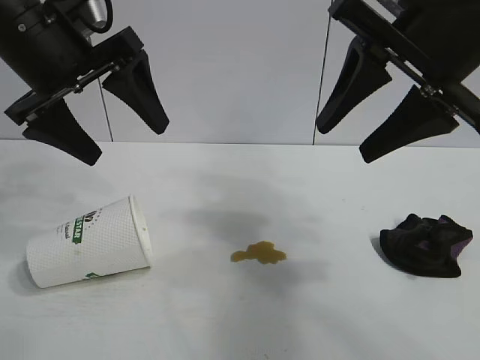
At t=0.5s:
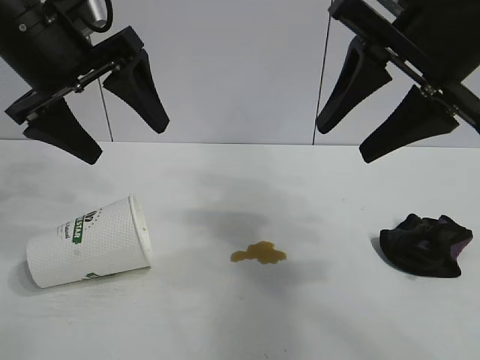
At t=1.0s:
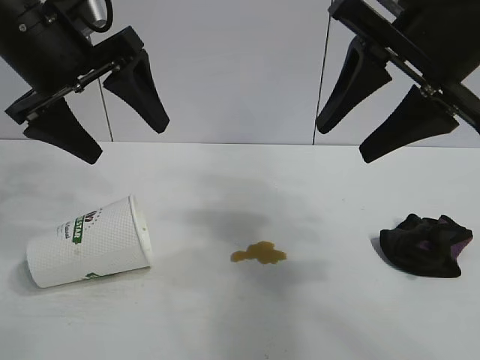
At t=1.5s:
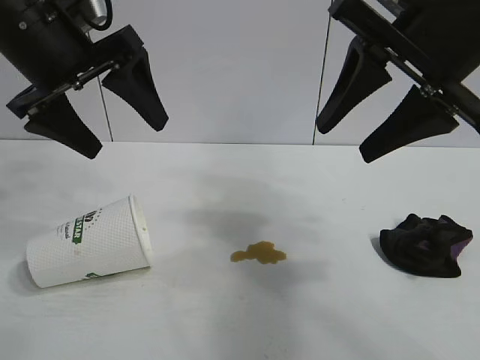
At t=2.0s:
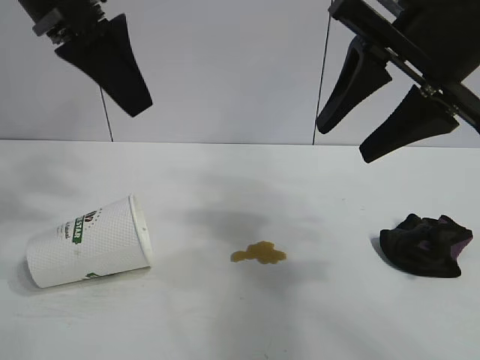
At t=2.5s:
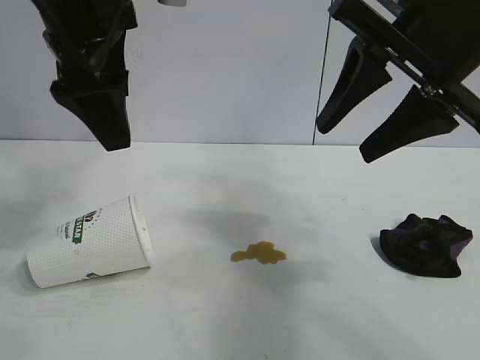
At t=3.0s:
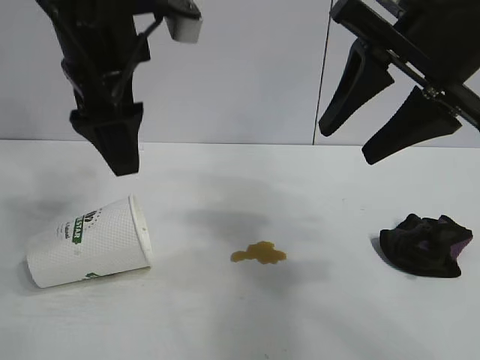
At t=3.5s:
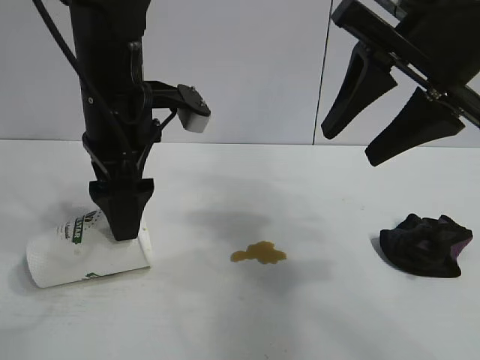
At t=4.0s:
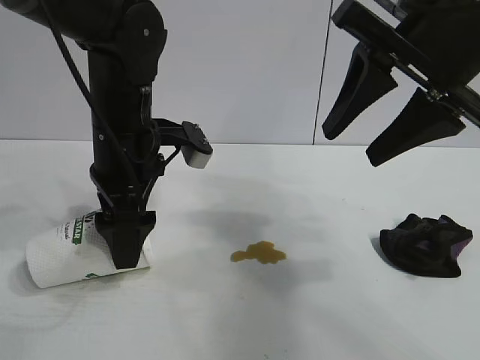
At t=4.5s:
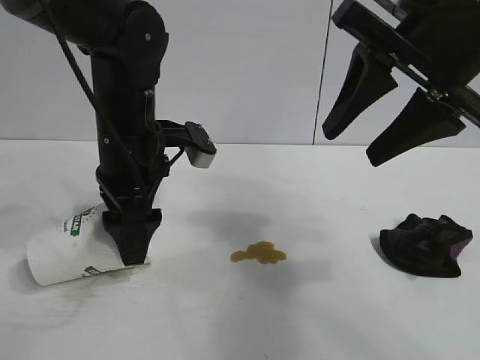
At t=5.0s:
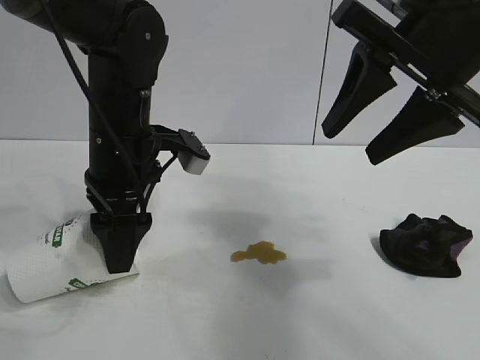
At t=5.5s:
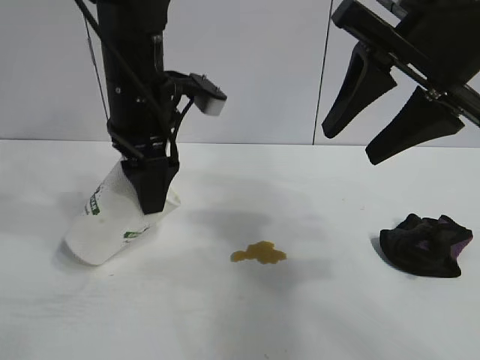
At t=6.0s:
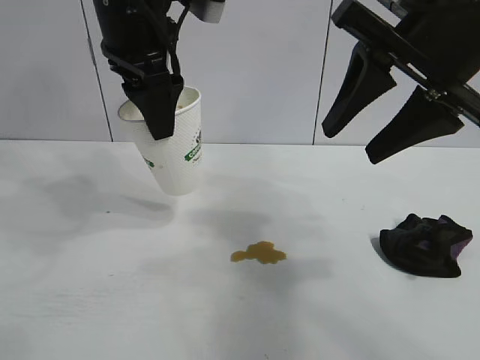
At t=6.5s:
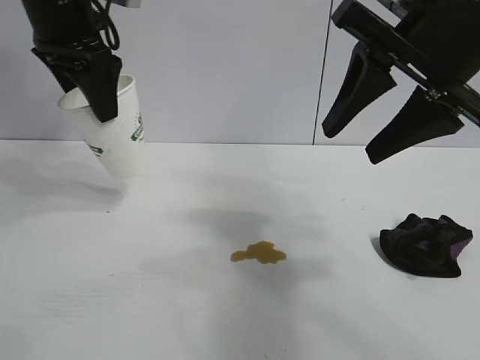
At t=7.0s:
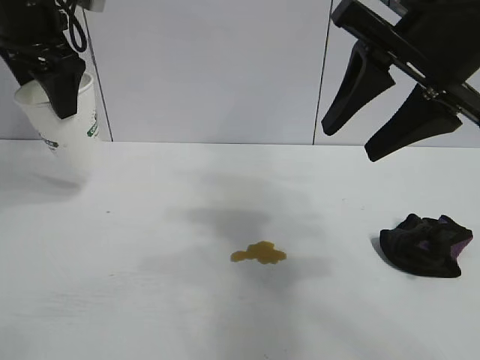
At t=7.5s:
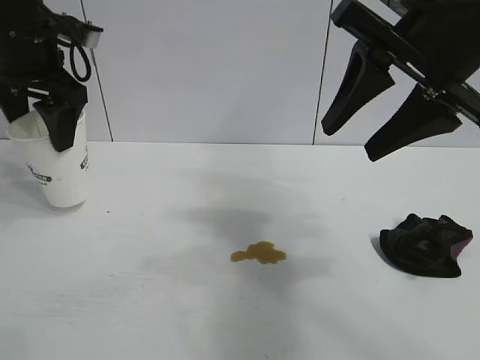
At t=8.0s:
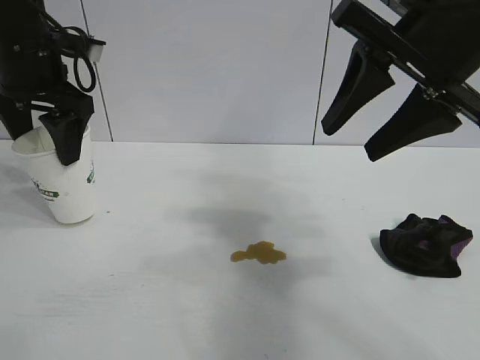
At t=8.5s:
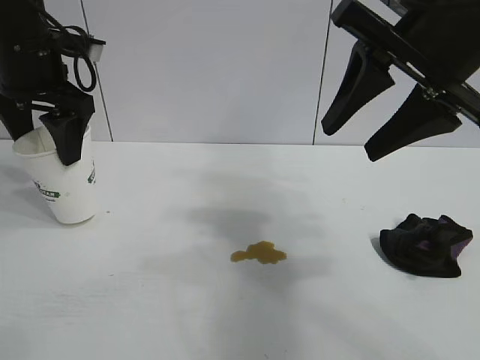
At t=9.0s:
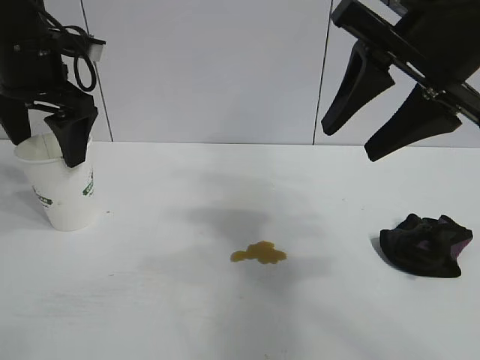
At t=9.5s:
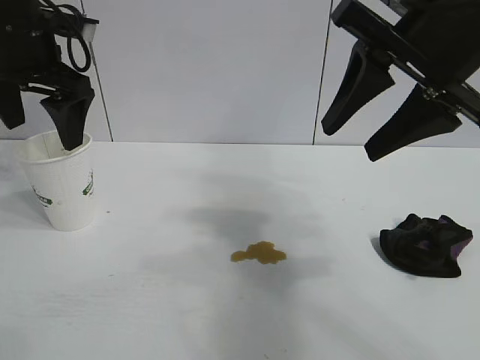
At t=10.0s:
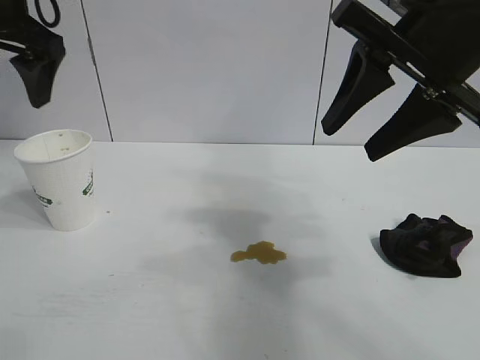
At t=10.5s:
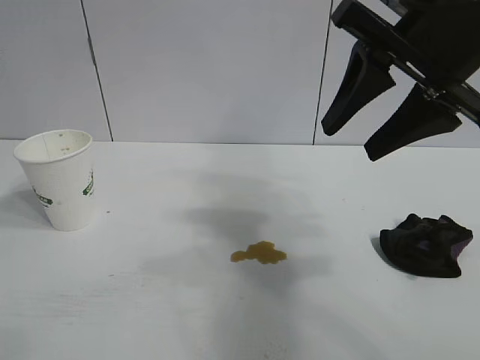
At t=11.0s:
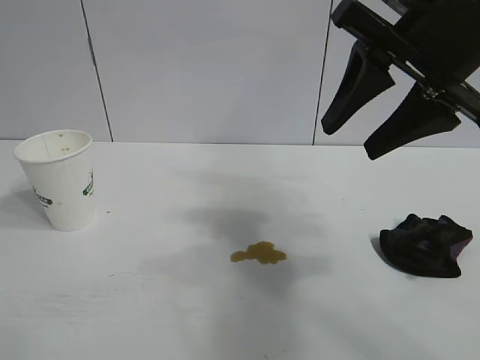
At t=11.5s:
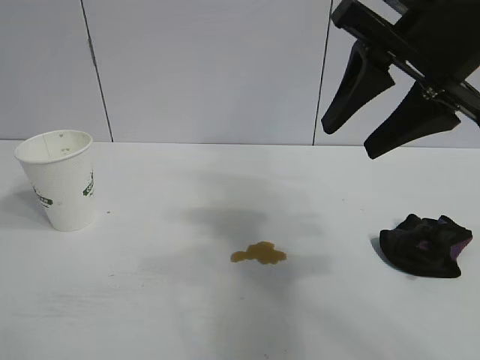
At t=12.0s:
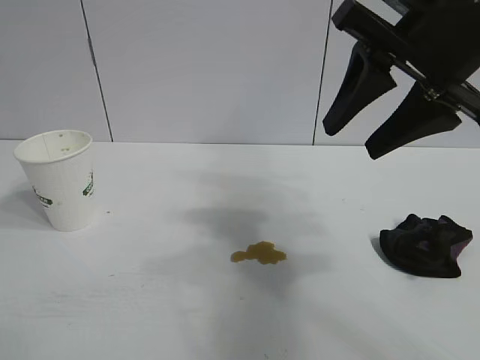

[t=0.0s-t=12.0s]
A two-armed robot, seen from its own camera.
Task of the whole recording: the left gripper pick up the fallen cup and place it upright, the right gripper grasp the black rag and wipe the stain on the table, the right gripper put the black rag back in its original position.
Step, t=1.5s to t=5.0s: Grasp the paper cup with left gripper.
Step, t=5.5s to t=8.5s: Stand the paper cup upright with left gripper.

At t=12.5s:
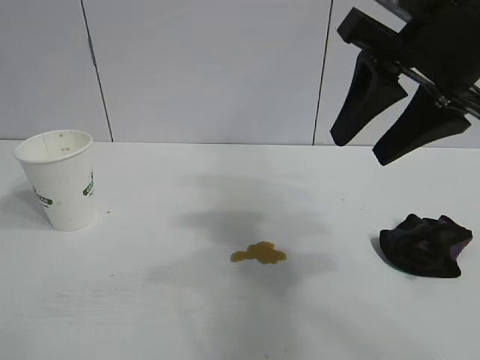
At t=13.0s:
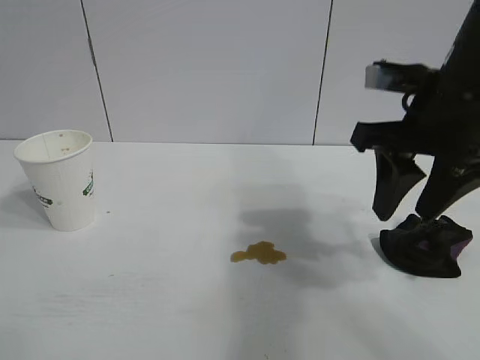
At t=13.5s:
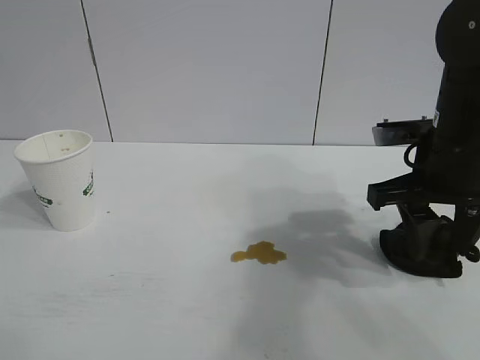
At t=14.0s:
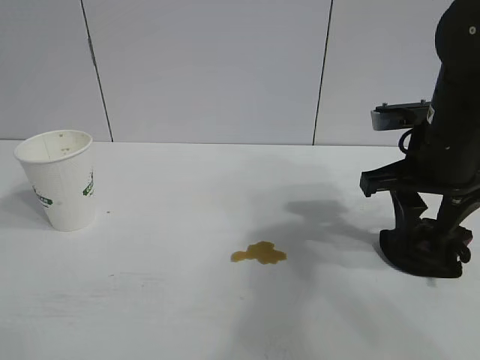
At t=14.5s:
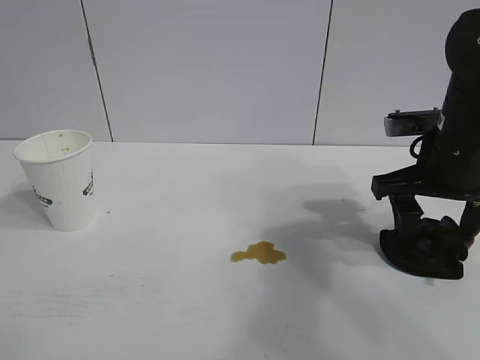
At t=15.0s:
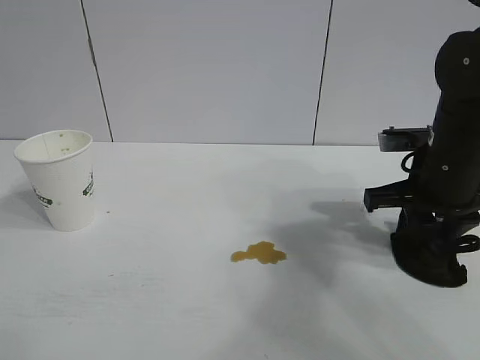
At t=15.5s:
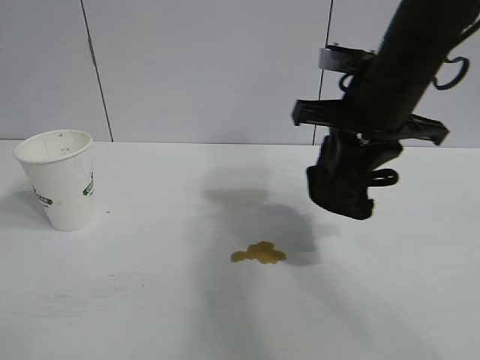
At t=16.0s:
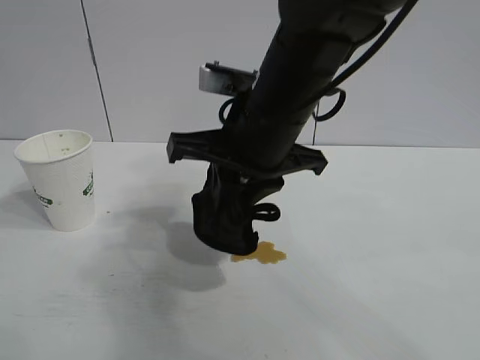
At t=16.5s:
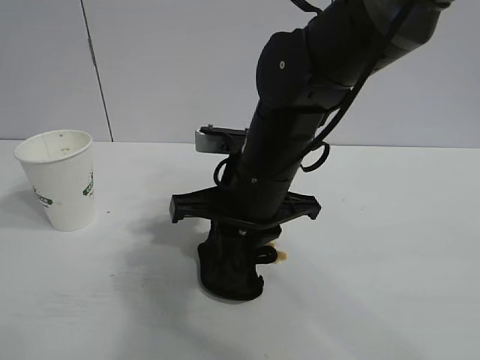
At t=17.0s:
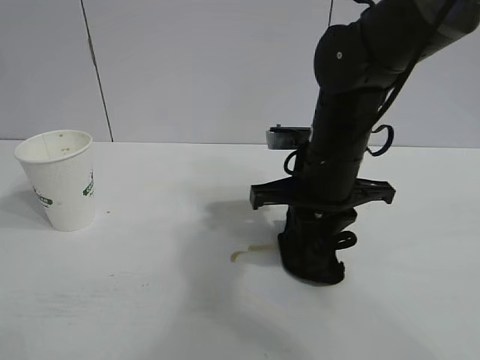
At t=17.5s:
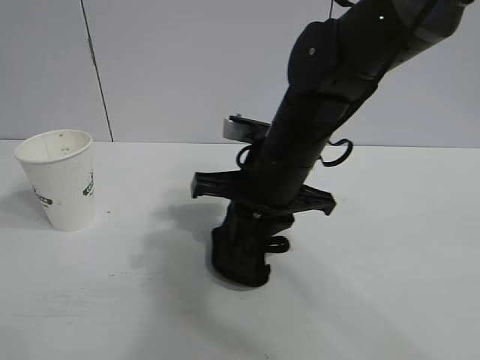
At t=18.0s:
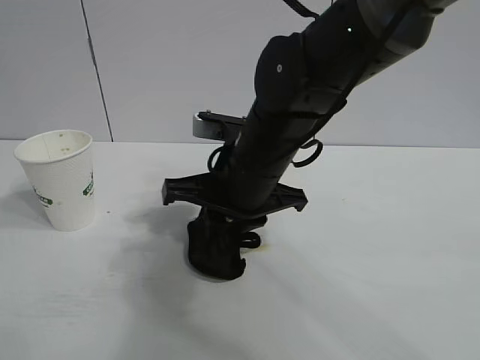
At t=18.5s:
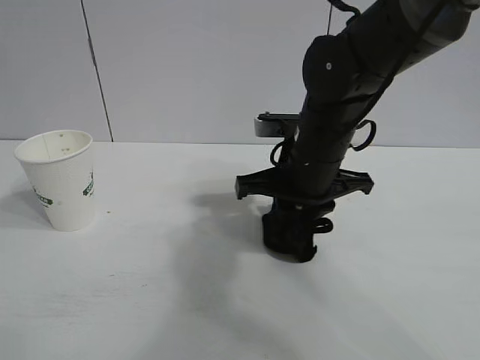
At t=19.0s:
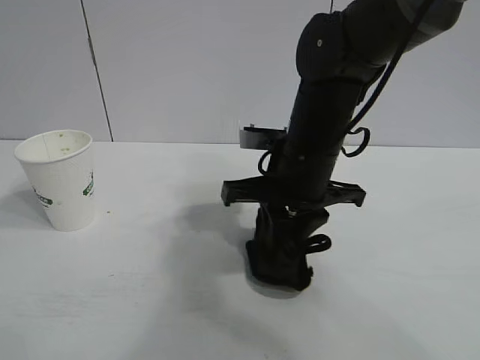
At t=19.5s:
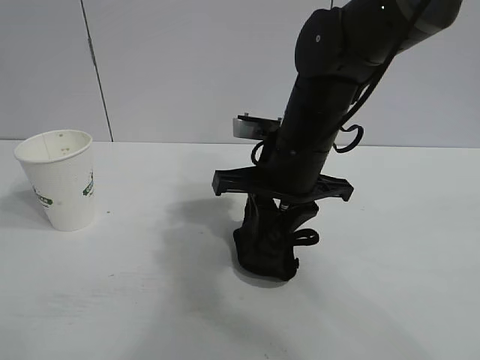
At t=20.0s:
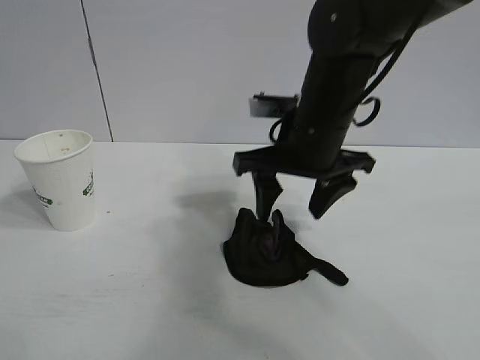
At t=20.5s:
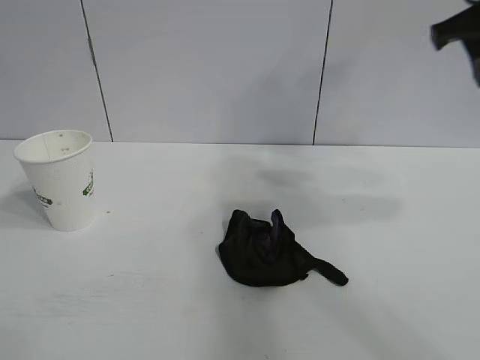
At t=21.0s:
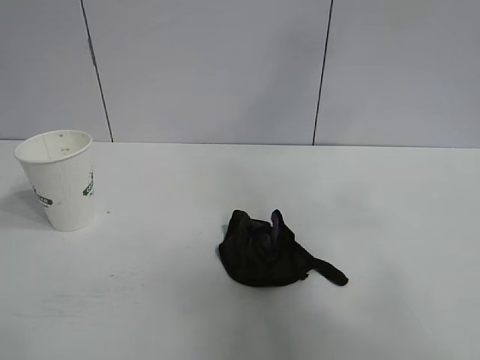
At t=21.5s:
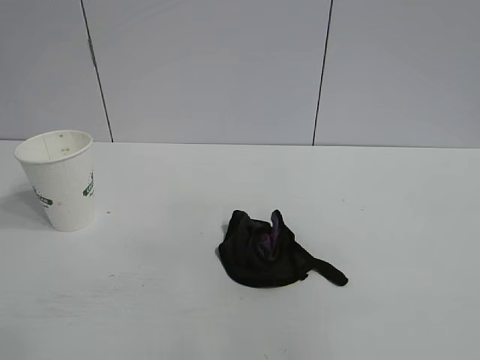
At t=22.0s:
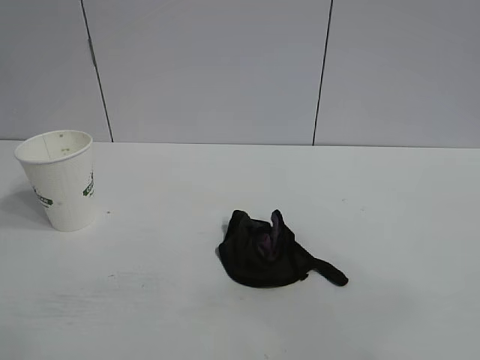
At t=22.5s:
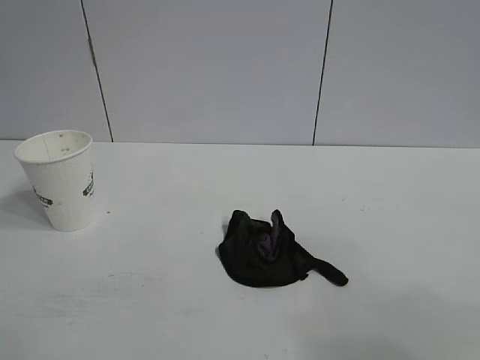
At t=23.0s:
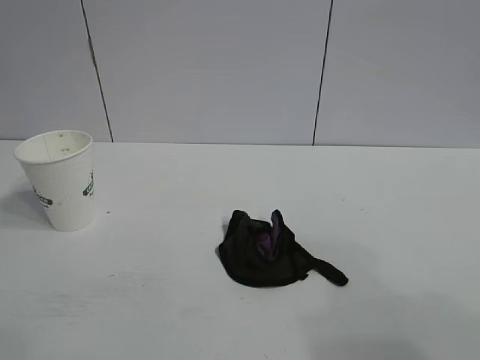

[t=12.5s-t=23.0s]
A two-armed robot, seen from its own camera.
Task of the whole recording: the left gripper pick up the fallen cup and place it upright, the right gripper grasp the black rag and wipe the stain on the table, the right gripper put the black rag back in its original position.
Step, t=12.5s to t=15.0s: Grasp the rag with right gripper.
Step, t=15.5s to t=19.0s: Wipe the stains off the table with the rag with right gripper.

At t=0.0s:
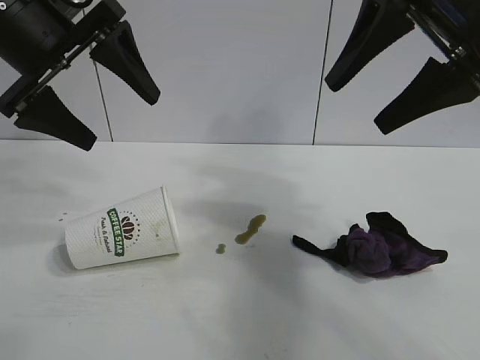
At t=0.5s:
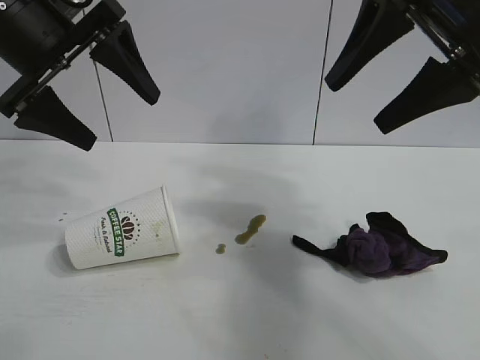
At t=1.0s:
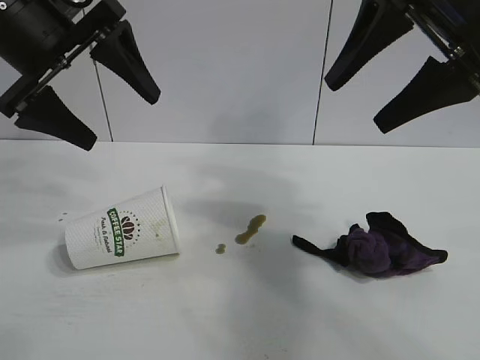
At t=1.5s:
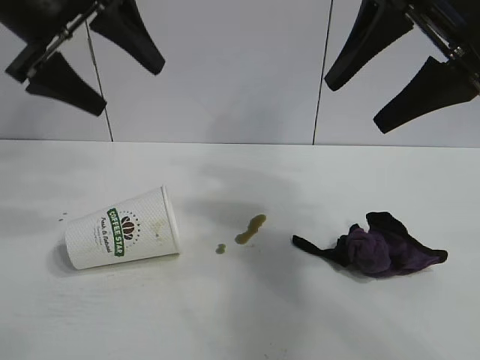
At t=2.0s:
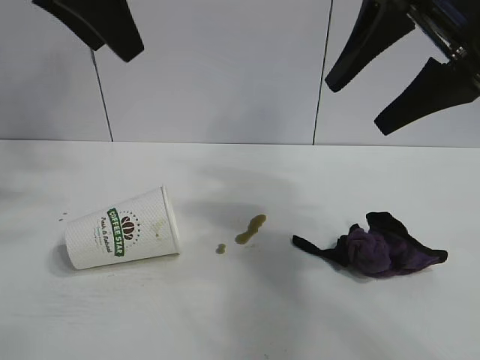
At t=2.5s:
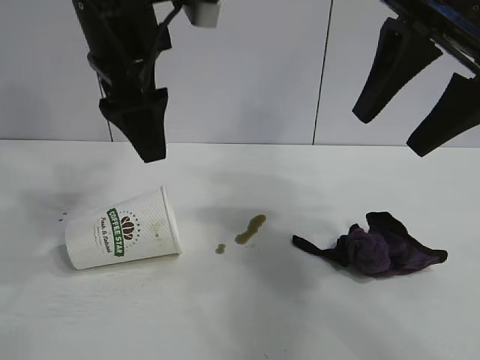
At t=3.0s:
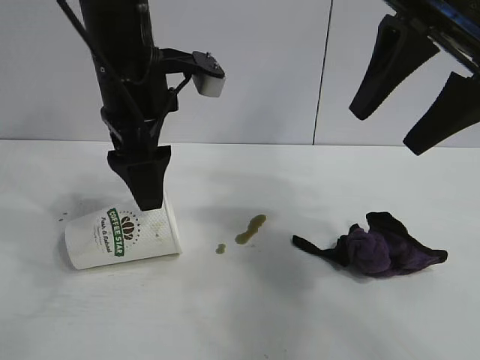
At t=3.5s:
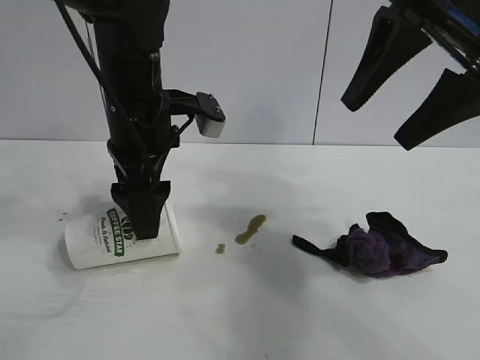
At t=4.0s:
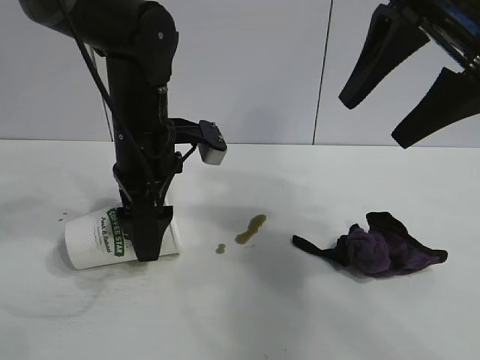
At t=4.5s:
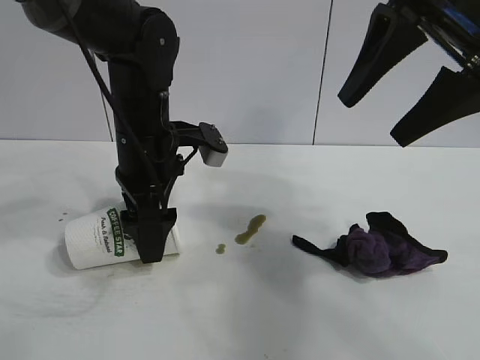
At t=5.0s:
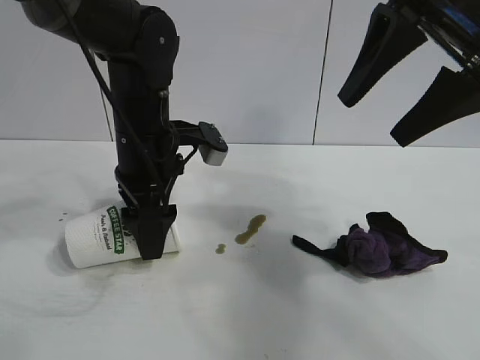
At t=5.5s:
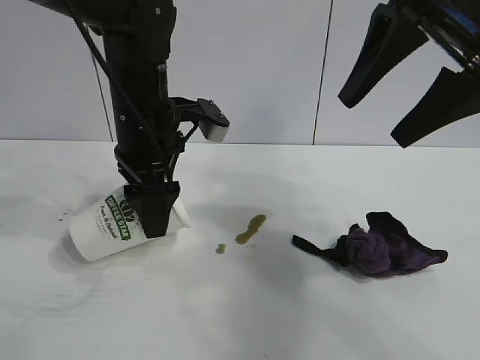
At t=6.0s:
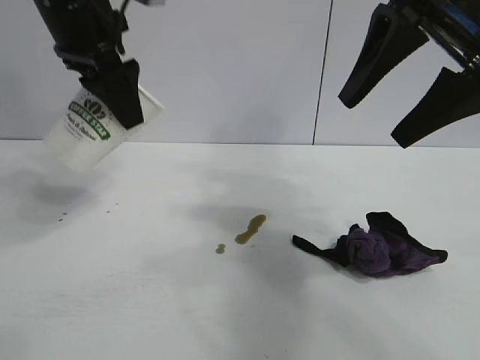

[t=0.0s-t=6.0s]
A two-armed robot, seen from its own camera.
Task of the whole recording: the left gripper pick up the fallen cup and place it upright, the right gripper grasp the black rag and wipe the stain on the table, the right gripper put the black rag back in its original position.
Step, t=1.5s to t=4.5s: Grasp the paper cup with left gripper.
